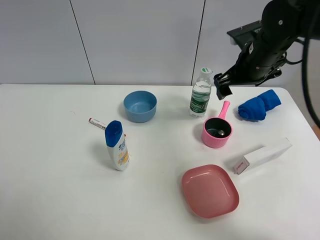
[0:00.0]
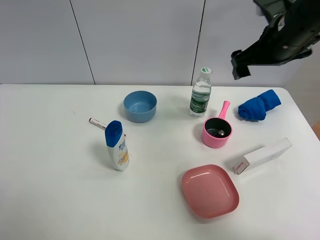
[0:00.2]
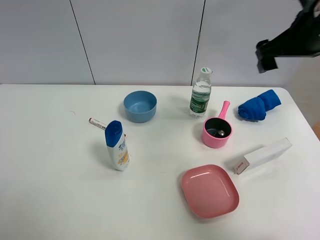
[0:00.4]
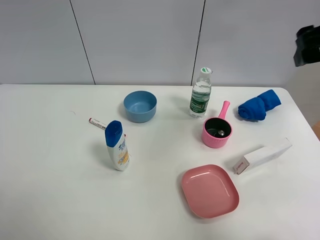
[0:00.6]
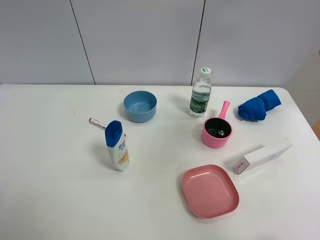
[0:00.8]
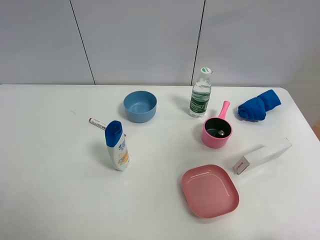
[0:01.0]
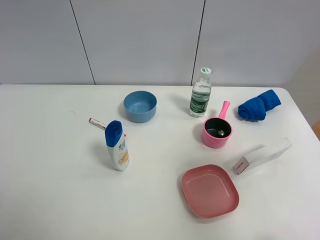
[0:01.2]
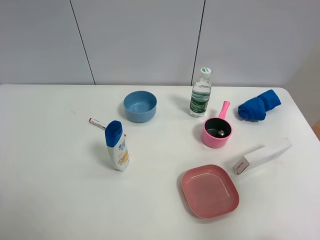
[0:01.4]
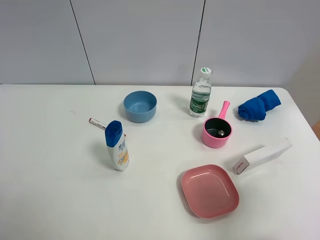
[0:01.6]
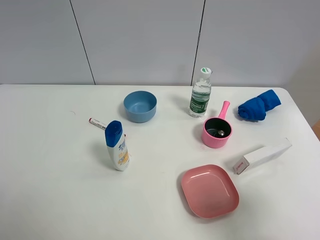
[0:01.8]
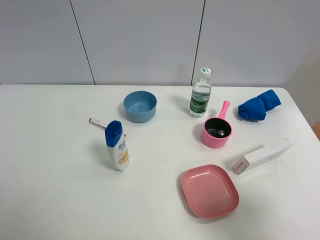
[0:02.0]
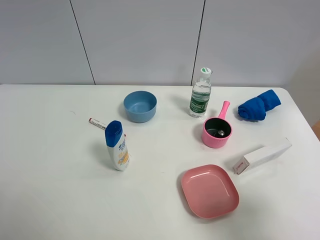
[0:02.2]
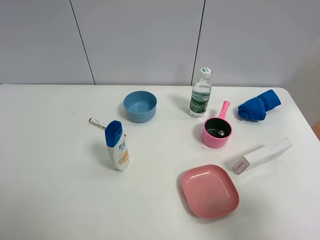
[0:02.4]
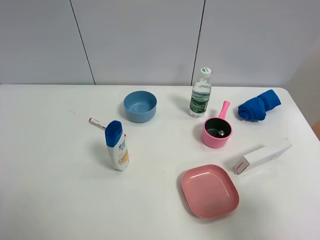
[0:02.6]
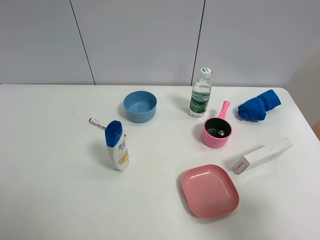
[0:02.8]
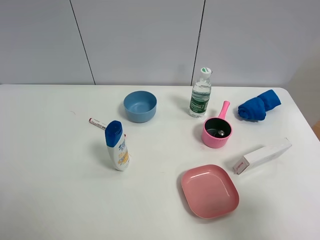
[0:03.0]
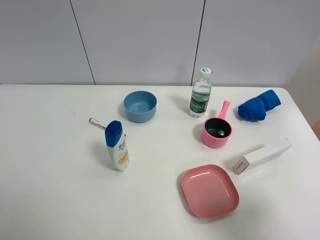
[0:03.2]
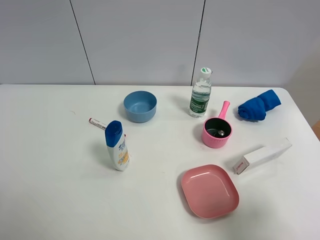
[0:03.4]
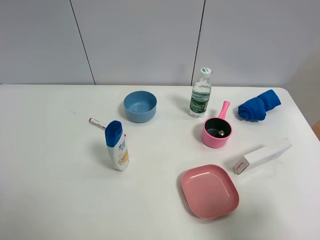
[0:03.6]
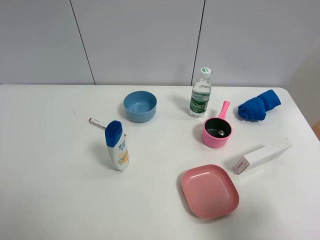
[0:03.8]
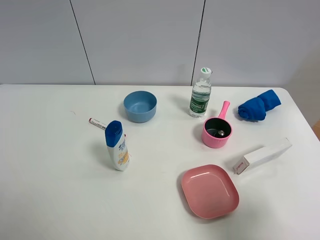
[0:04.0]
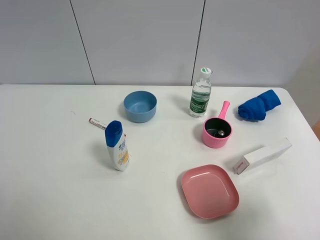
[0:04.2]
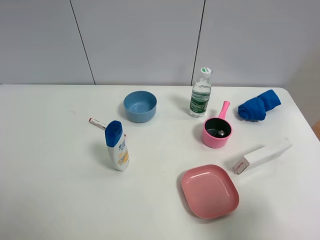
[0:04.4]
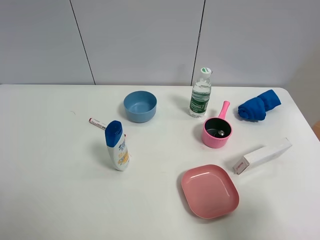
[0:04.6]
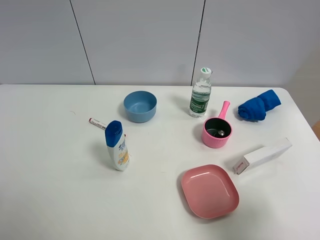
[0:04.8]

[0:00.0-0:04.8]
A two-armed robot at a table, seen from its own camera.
Task of the whole recording: the gripper move the object.
0:00.0 to 0:01.6: The right gripper is displaced backward by about 30 cm.

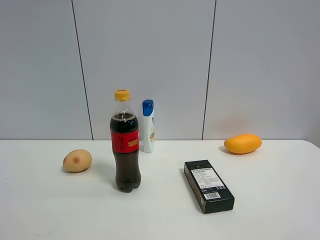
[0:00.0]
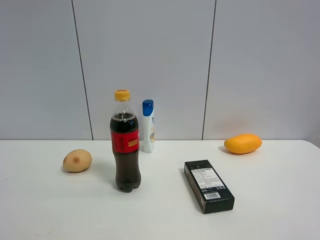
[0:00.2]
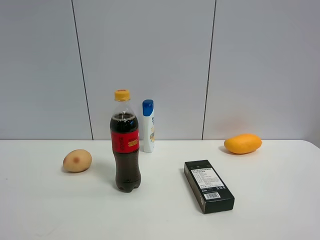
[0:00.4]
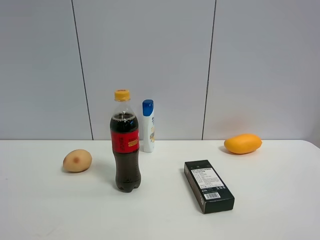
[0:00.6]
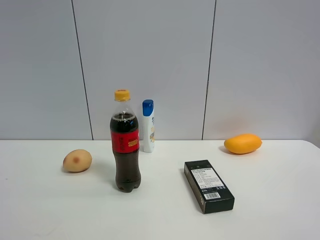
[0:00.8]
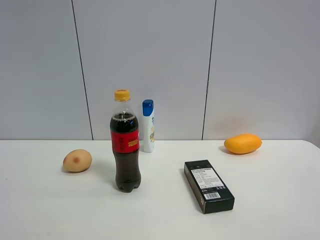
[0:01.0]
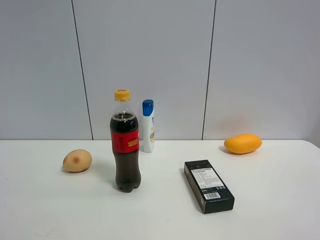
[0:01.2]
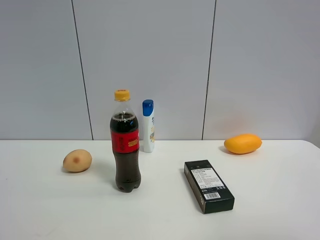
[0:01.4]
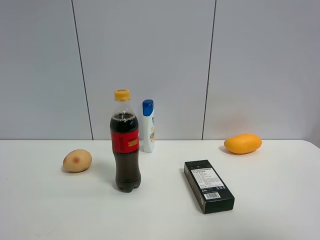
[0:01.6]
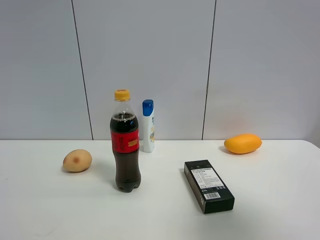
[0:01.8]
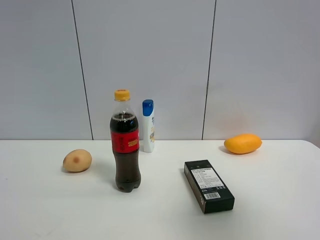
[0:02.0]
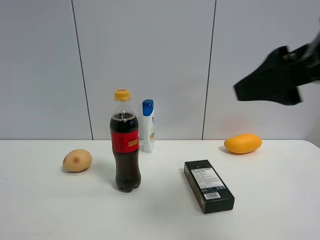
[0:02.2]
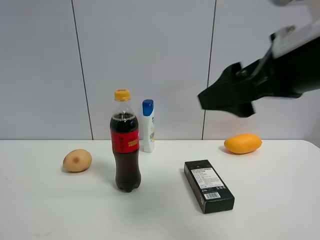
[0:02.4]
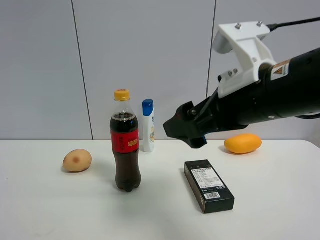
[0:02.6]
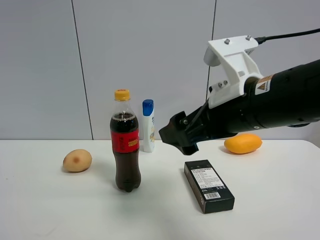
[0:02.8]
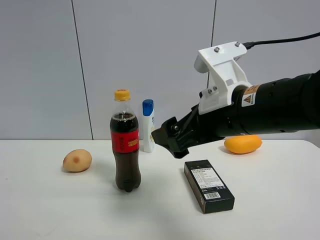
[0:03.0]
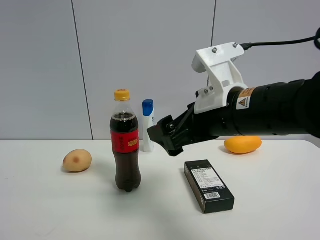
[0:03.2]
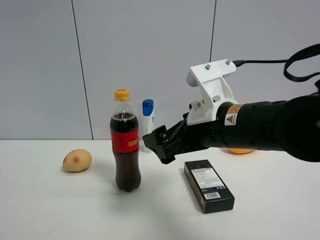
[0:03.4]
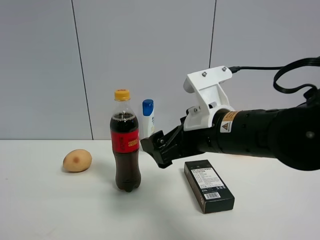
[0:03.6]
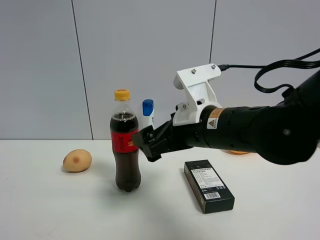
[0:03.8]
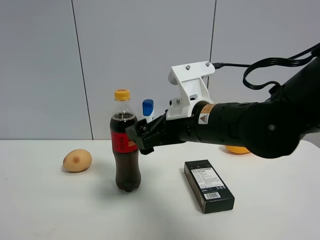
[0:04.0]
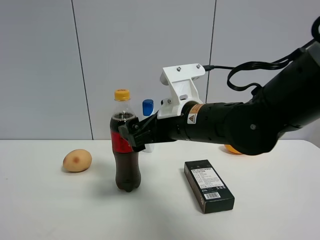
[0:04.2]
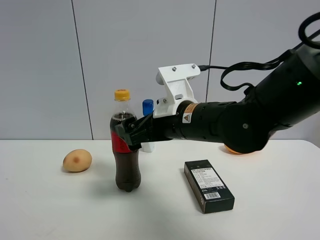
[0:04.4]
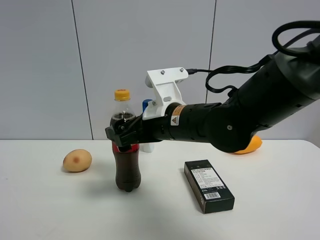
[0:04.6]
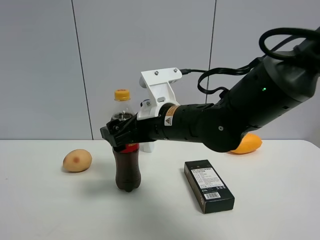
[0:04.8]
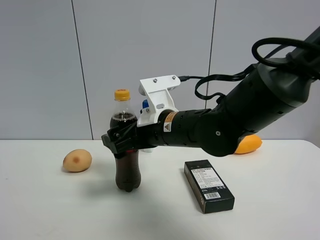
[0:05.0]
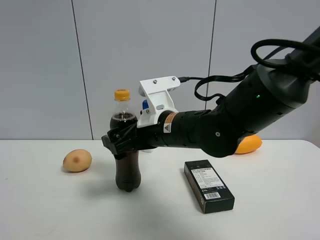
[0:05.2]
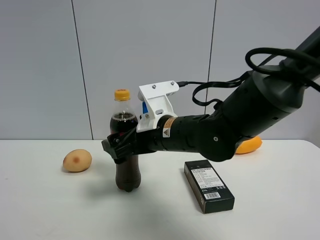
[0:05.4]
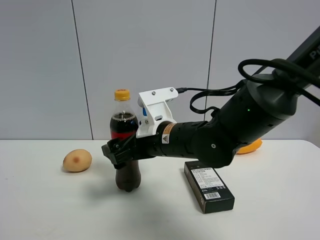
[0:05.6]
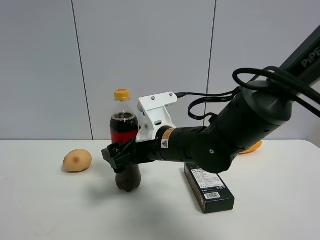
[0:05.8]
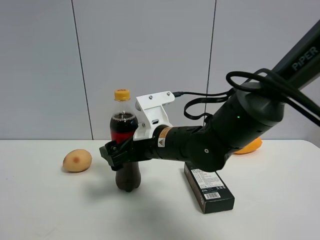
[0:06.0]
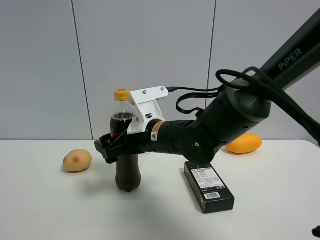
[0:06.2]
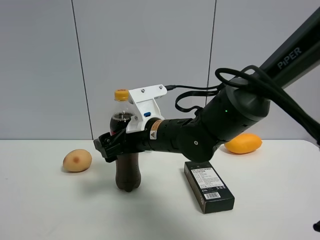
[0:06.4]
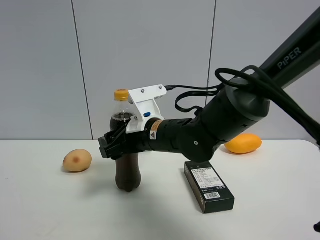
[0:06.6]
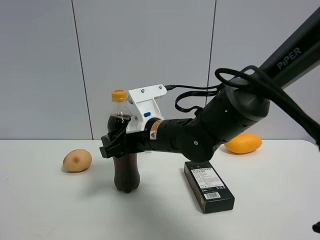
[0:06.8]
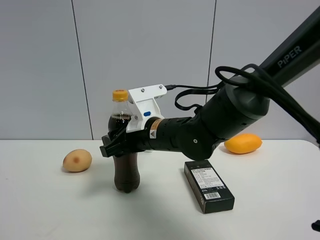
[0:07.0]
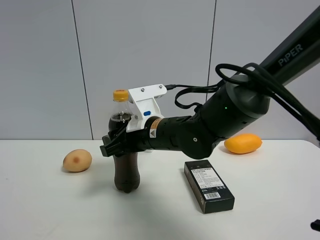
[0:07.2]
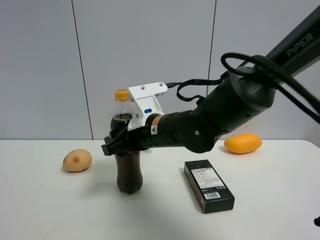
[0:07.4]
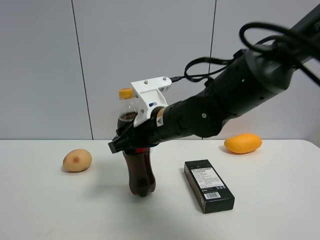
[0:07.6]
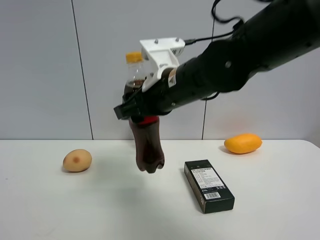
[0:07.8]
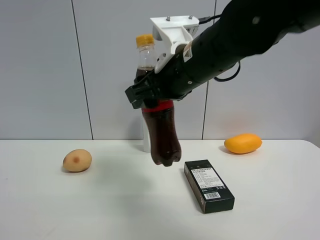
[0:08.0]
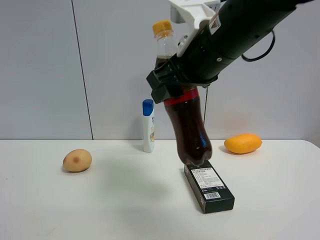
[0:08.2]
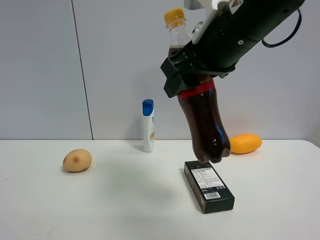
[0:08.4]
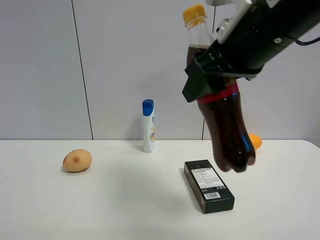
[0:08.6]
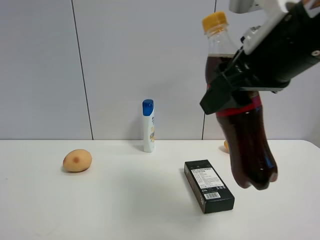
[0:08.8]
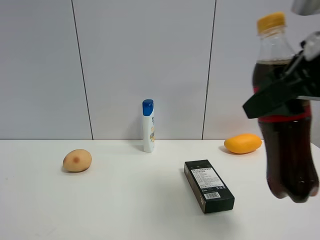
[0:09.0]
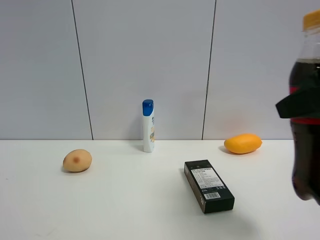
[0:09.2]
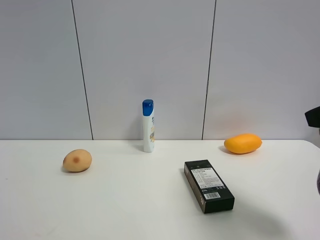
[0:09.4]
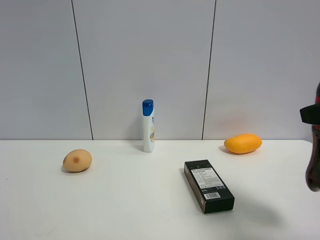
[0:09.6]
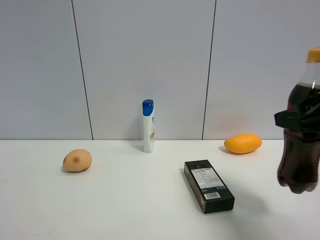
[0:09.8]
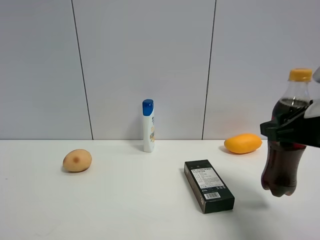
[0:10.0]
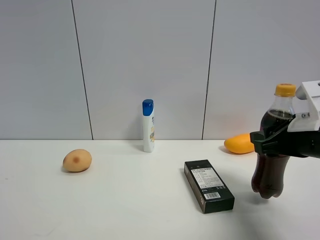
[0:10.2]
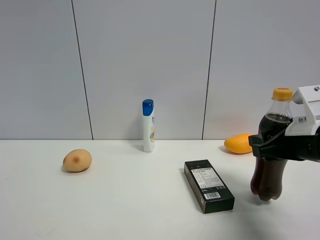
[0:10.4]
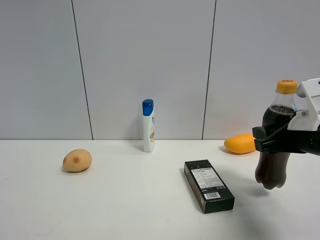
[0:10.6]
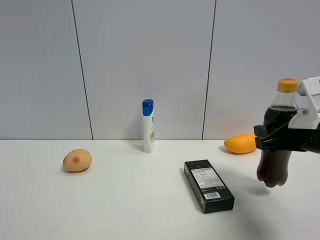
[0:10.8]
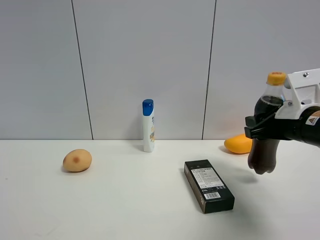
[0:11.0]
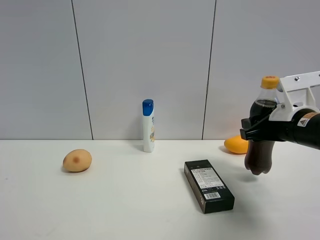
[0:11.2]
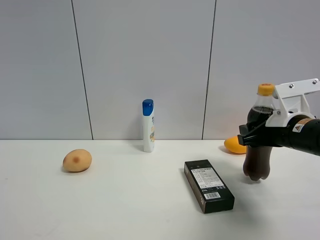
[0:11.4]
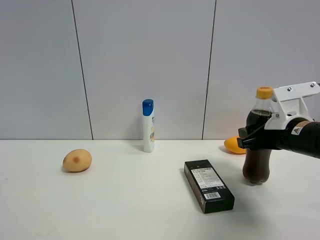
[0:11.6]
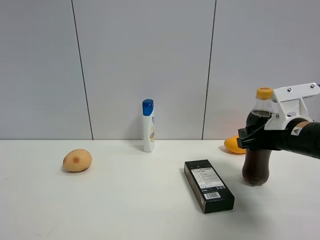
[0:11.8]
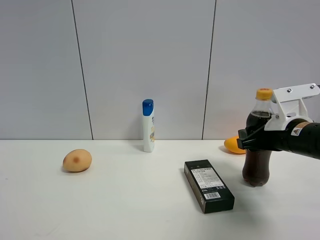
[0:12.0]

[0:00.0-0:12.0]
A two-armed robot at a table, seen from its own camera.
Task of the whole recording: the gripper move the object.
Step, 0:00.0 to 0:06.6: Grasp the coke with the right gripper.
0:00.0 to 0:01.6: The right gripper travels upward and forward by about 10 cm.
0:01.6 to 0:03.0: The right gripper travels to the left, forward and downward by some 30 cm.
0:03.0 to 0:04.4: The right gripper goes some 10 cm to the left and forward.
0:04.4 to 0:06.0: The right gripper moves about 5 cm.
0:06.0 to 0:07.6: The right gripper closes.
0:07.6 to 0:09.0: The right gripper shifts some 25 cm to the right, backward and upward.
0:09.0 to 0:10.4: The right gripper travels downward and forward by approximately 15 cm.
0:10.4 to 0:12.0: The right gripper heads forward, covering roughly 5 cm.

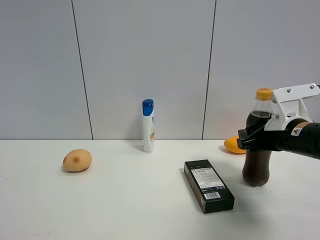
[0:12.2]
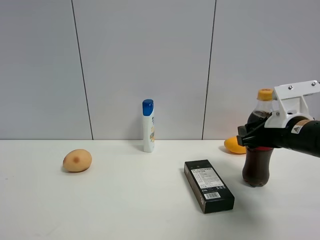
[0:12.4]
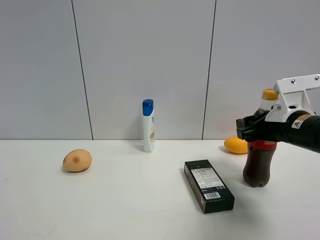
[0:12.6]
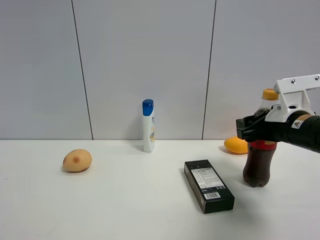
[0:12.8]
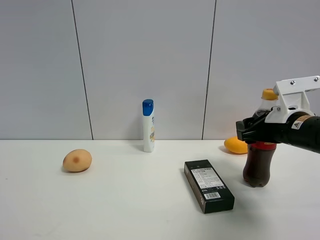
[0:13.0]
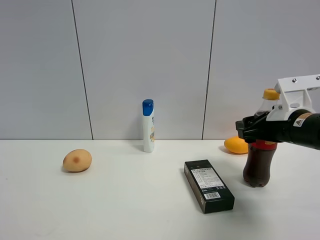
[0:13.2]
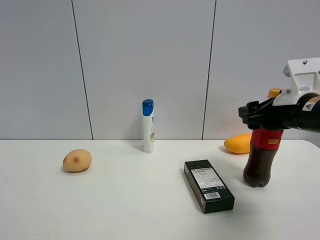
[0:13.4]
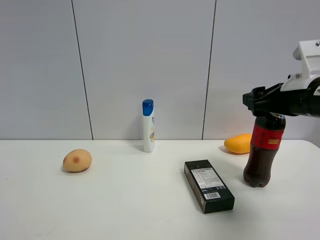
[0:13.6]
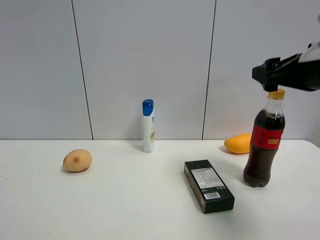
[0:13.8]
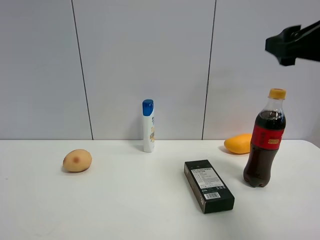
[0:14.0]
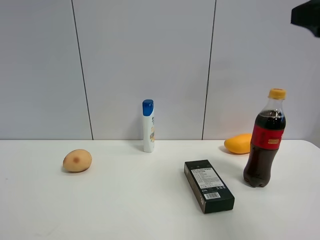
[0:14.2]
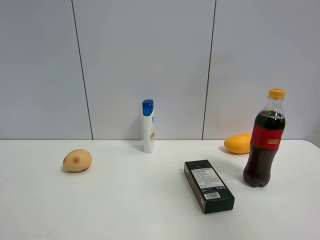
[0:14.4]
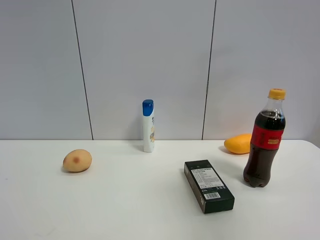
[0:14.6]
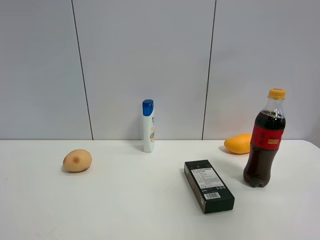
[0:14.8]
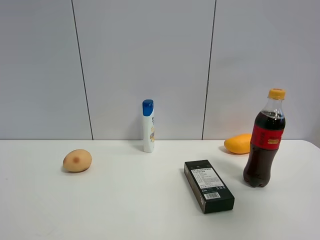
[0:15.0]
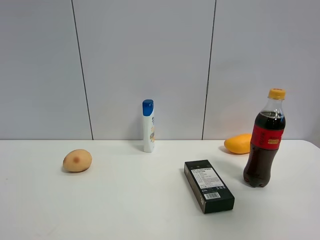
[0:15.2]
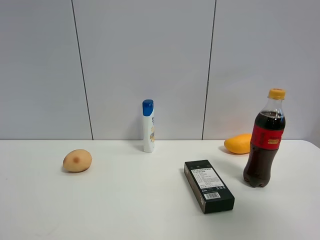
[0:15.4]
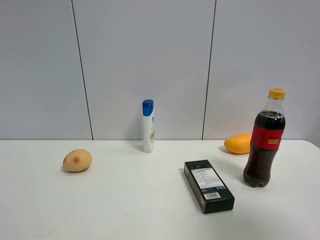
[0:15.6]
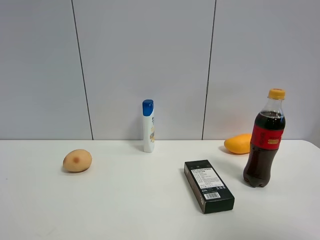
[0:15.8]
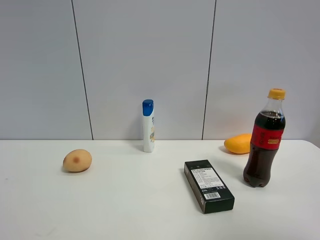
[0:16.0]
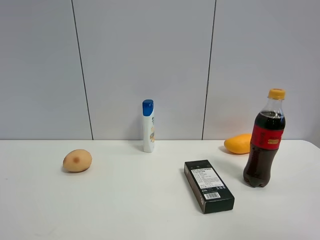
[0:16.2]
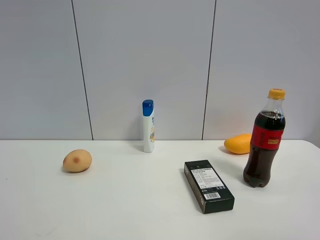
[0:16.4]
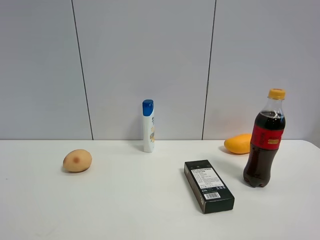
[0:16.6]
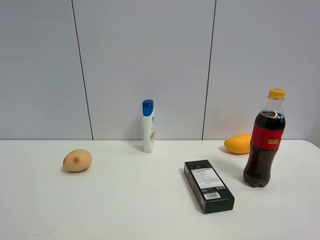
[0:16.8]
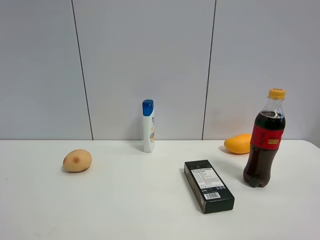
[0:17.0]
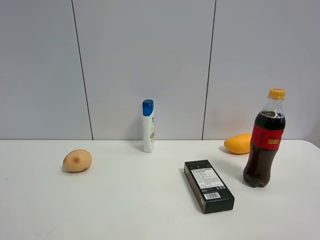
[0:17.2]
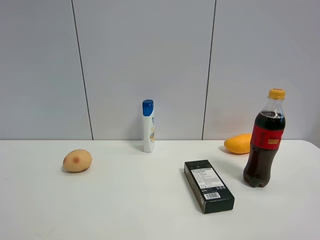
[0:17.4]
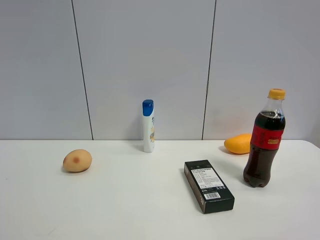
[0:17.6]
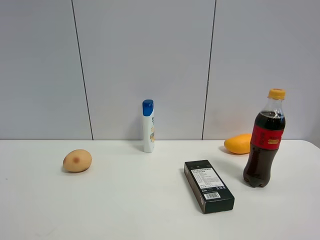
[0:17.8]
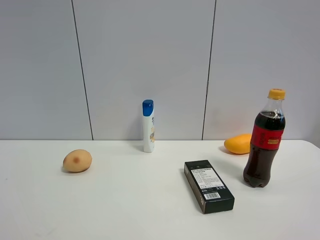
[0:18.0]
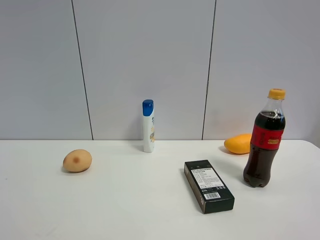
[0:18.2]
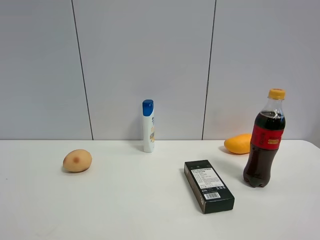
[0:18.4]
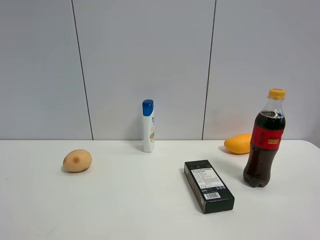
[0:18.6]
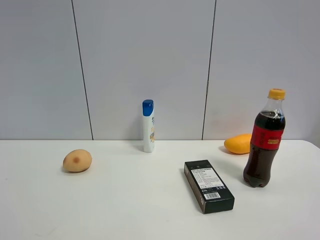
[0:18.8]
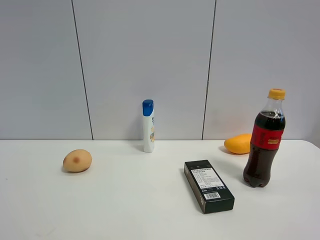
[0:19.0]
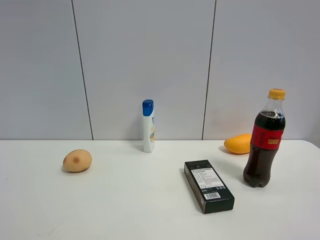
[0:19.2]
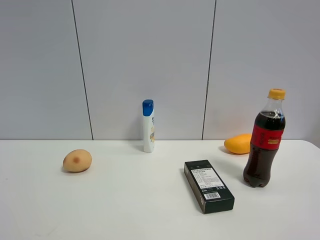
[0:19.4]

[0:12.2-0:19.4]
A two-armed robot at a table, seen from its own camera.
Task of the whole recording: the gripper move the object.
0:12.2 to 0:13.6: The right gripper heads upward, covering approximately 10 cm, and opens up.
0:13.6 to 0:15.0: The right gripper heads upward and backward, covering some 25 cm.
0:15.0 to 0:16.6: The right gripper moves backward and downward, about 15 cm, and opens its fingers.
0:18.0 to 0:19.4: Neither gripper changes place.
